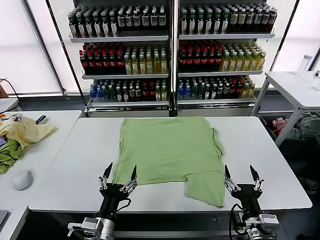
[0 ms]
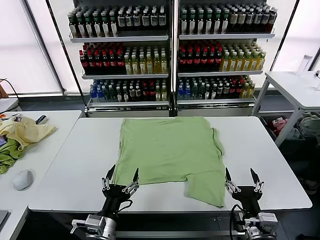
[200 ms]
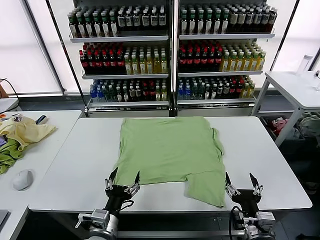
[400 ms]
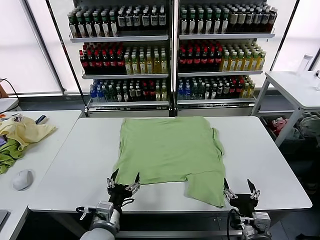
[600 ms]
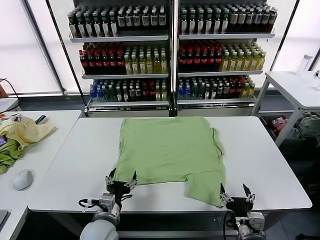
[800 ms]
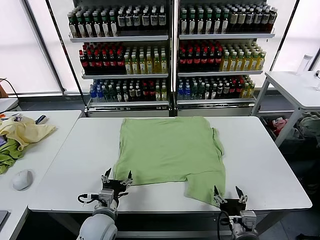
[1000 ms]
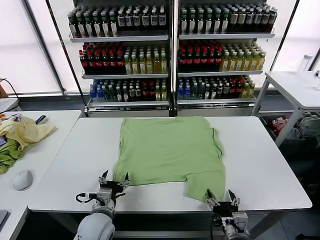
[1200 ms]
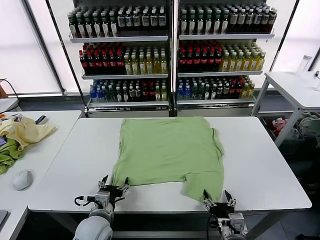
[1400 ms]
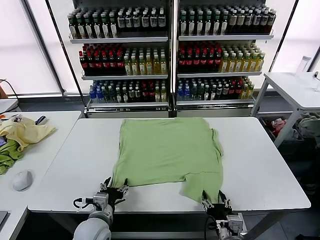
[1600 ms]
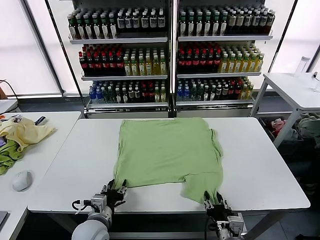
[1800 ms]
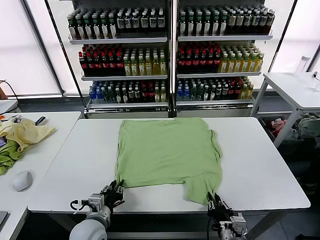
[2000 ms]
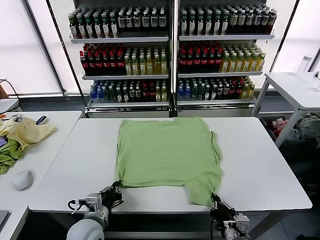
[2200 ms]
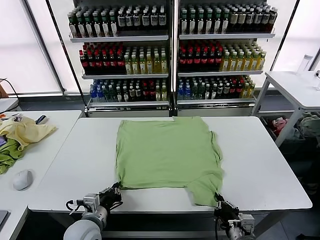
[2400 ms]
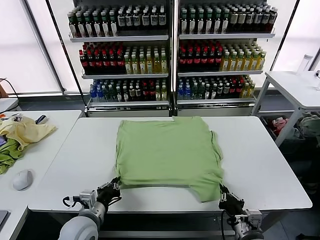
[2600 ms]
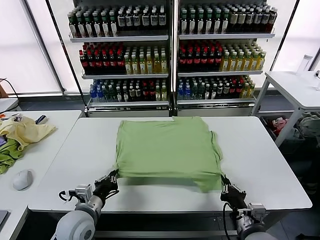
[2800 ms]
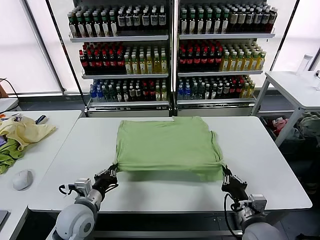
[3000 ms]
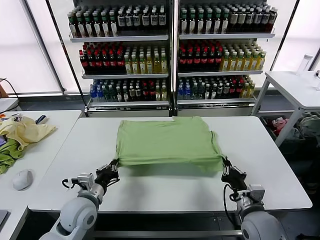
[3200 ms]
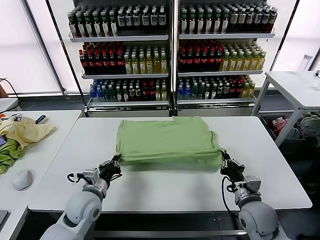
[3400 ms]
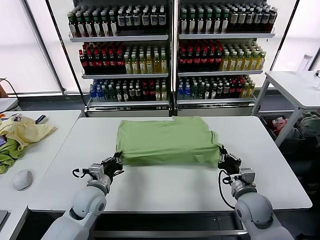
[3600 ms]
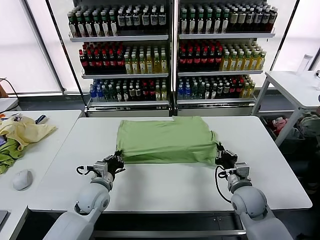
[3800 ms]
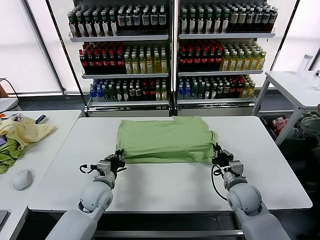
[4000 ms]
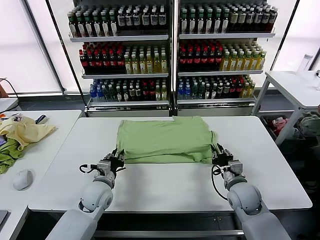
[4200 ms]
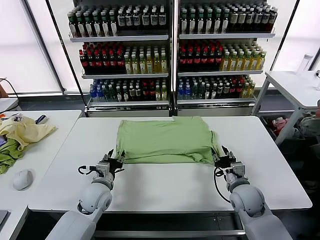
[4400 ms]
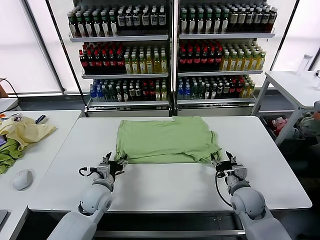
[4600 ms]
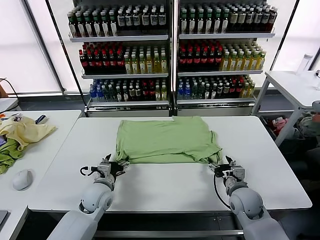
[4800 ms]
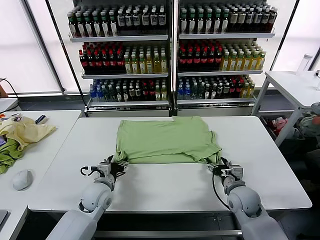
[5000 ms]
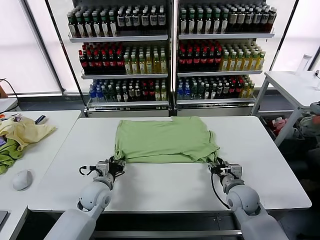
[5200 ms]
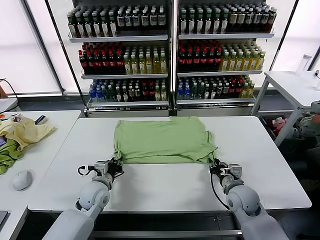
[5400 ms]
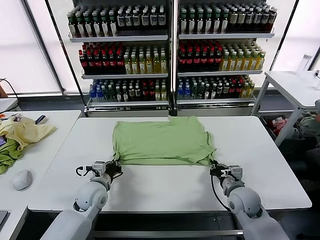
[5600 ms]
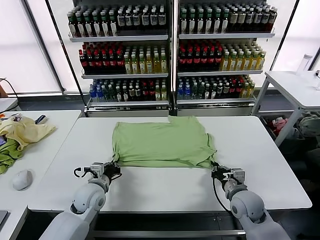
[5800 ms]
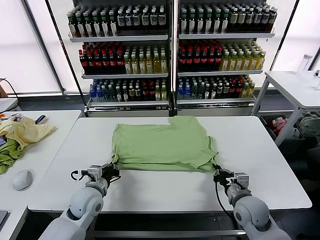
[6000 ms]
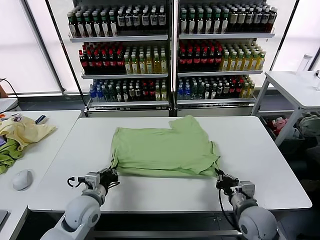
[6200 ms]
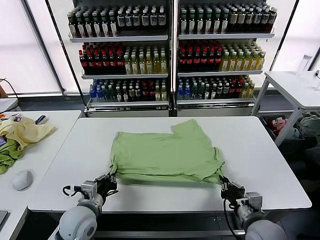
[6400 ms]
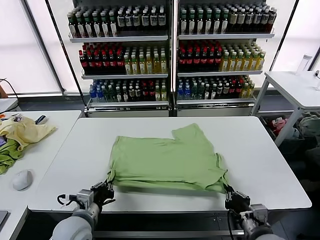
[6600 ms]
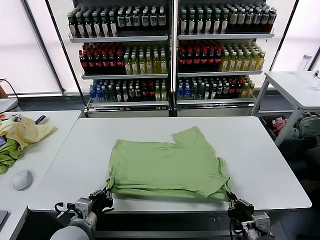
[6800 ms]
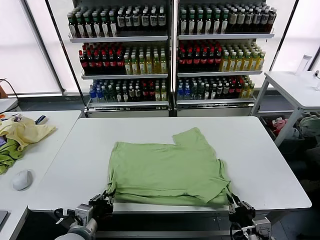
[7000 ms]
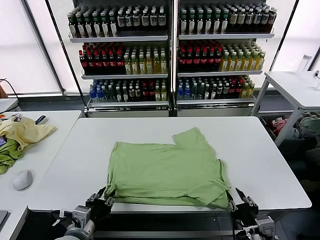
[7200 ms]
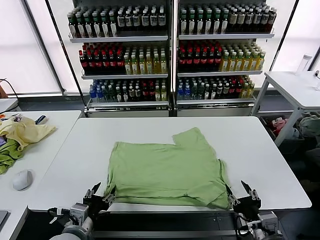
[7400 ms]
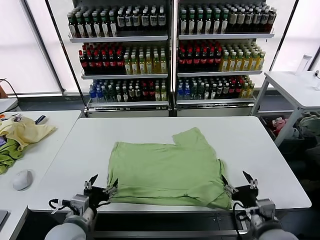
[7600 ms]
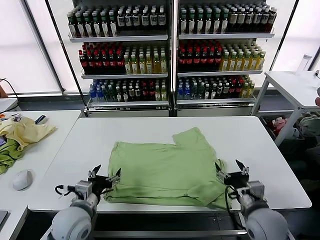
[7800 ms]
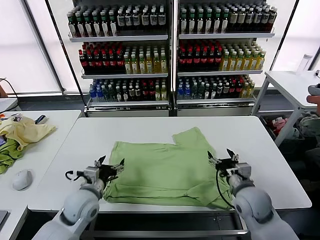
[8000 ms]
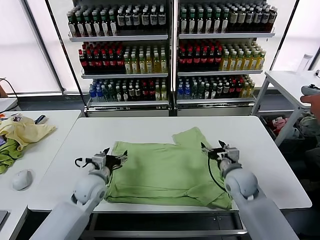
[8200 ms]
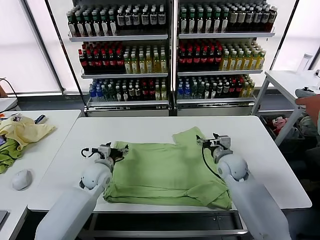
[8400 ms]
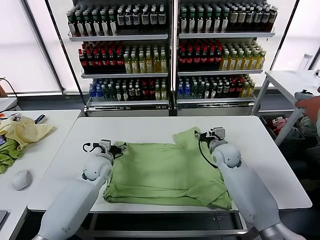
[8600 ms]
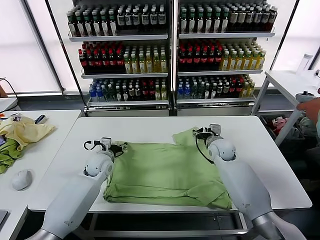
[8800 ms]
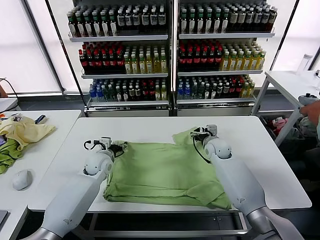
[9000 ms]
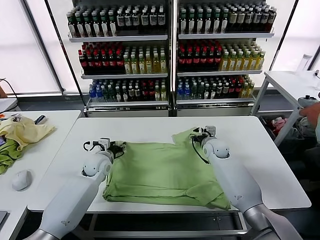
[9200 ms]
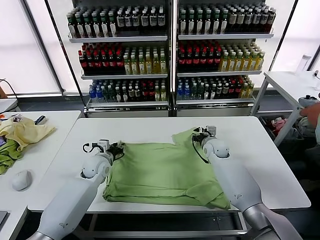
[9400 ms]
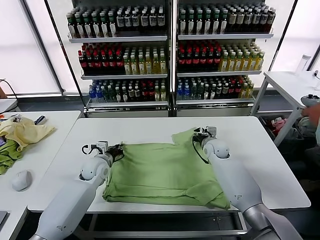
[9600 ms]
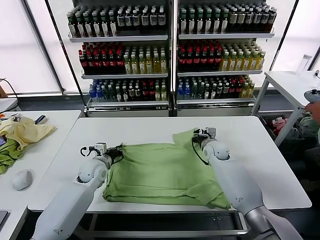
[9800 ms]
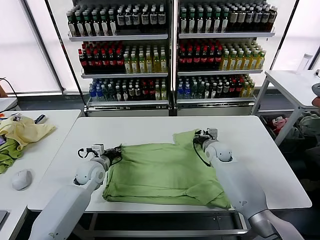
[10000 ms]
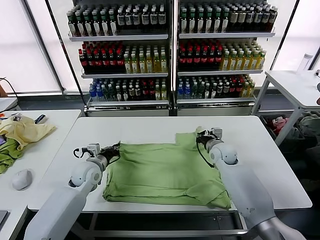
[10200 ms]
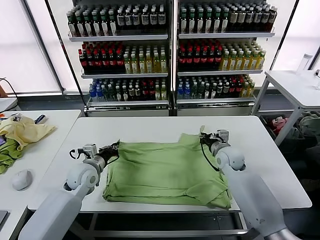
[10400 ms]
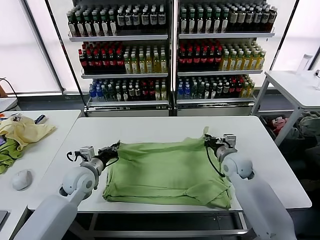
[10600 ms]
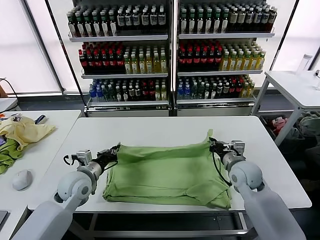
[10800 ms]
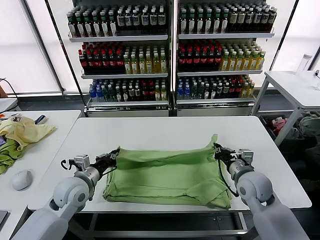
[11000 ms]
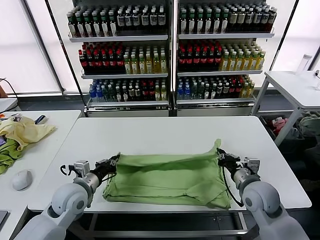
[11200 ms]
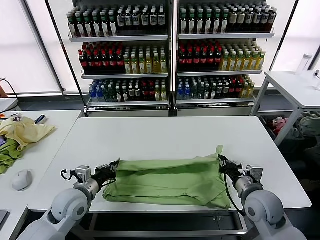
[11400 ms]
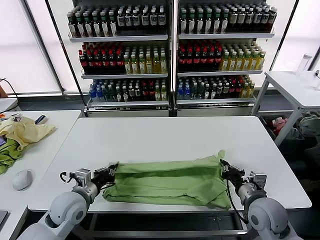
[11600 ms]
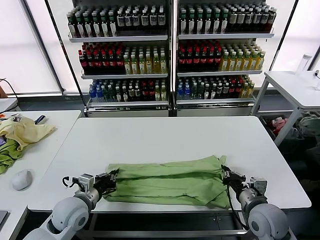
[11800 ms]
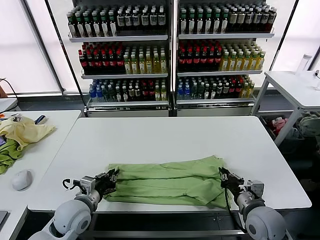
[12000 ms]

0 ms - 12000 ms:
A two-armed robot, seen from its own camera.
Task of the whole recording: fold and organize the clothes.
Step, 0 ms - 2200 ms: use both grippers simultaneously to clamp the lower edge of the clothing fabric.
Step, 2400 ms - 4400 ms: use both grippers to drag the lower edge of the fabric forward and fold it over the upper edge.
Step, 4600 ms - 7200 ms: Drag the clothes downward with both gripper.
Step, 7400 ms - 9600 ms: use both grippers simultaneously to clamp the upper edge of the clothing fabric.
1600 ms - 3000 ms: The right gripper heads forward, to the right and upward, covering roughly 10 cm, and closes its fingers; the left gripper moves roughly 5 cm, and closes its fingers.
3000 ms - 4400 ms: The grippers both shift forward by about 10 cm. The right gripper opens up. Meanwhile the left gripper opens up.
4400 ms - 6000 ms: The left gripper closes its fingers; the right gripper goes some 5 cm backward, and closes up.
6000 ms - 7600 ms: The left gripper goes roughly 10 cm backward, and opens; the right gripper heads backward, covering some 5 cm, and opens its fingers.
7600 ms - 9000 ms: The grippers both shift forward by some 30 cm.
9000 ms - 10400 ms: The two grippers go roughly 5 cm backward. The left gripper closes, while the right gripper closes its fingers.
10400 ms - 12000 ms: The left gripper goes roughly 15 cm backward. The right gripper heads backward, covering about 20 cm.

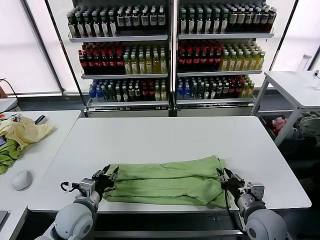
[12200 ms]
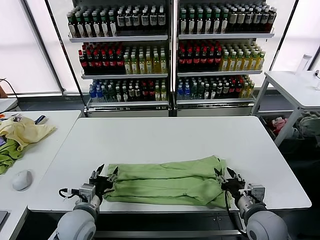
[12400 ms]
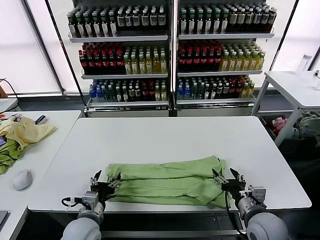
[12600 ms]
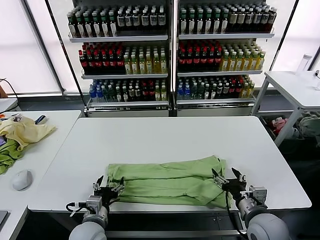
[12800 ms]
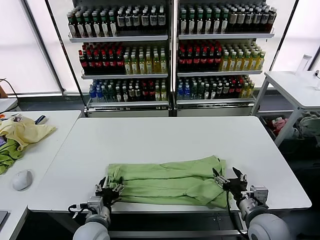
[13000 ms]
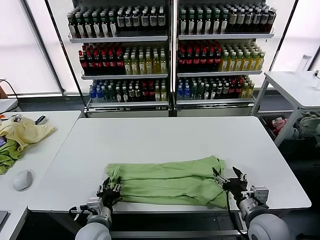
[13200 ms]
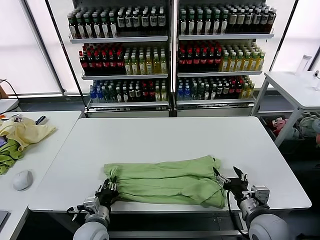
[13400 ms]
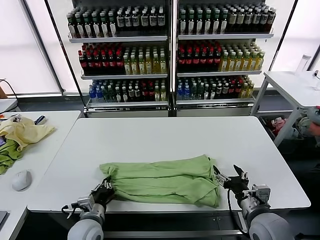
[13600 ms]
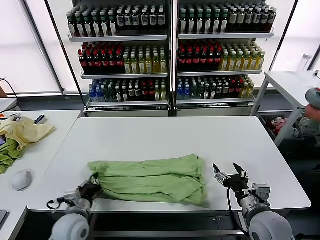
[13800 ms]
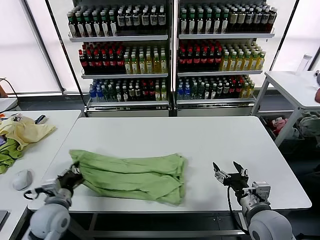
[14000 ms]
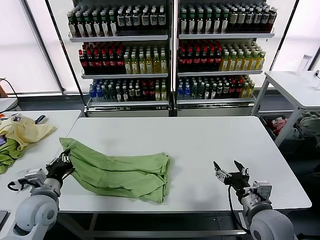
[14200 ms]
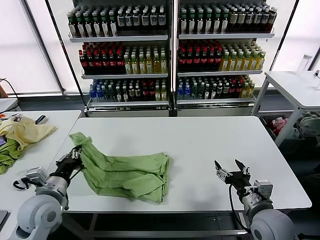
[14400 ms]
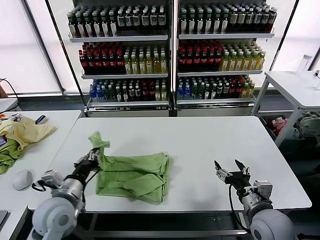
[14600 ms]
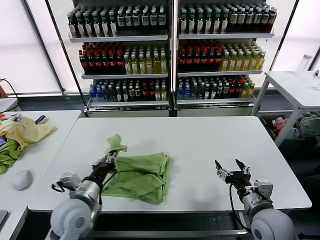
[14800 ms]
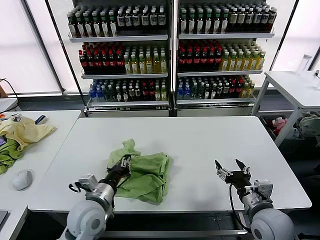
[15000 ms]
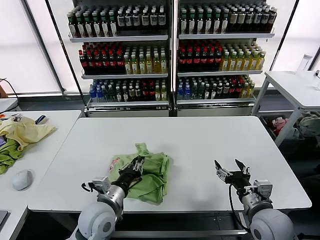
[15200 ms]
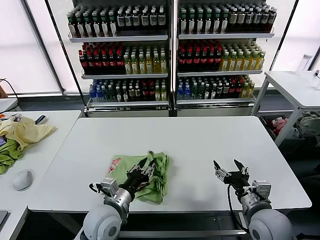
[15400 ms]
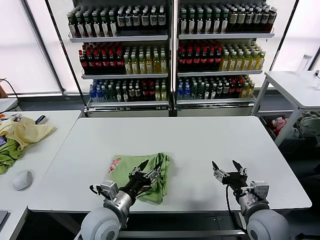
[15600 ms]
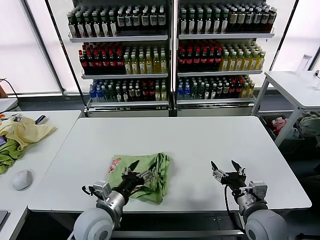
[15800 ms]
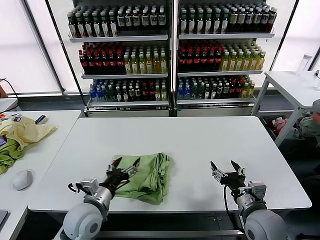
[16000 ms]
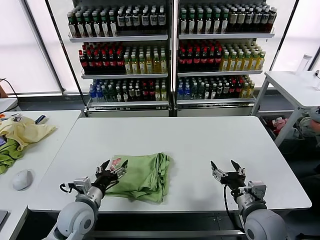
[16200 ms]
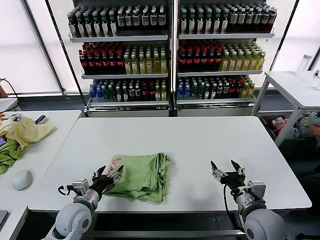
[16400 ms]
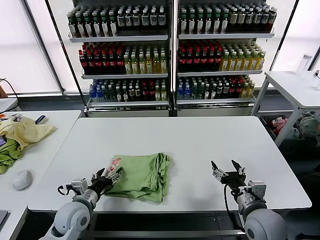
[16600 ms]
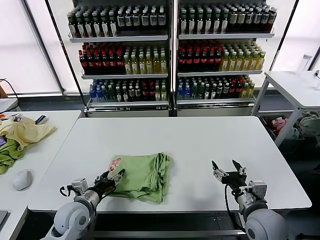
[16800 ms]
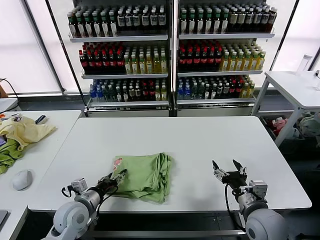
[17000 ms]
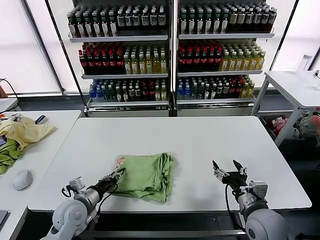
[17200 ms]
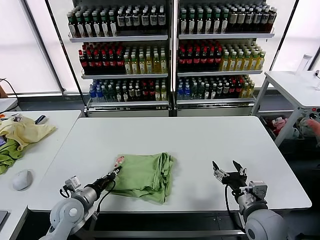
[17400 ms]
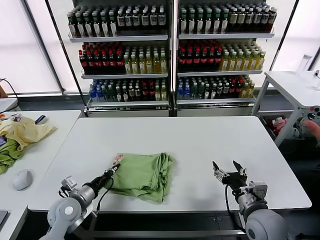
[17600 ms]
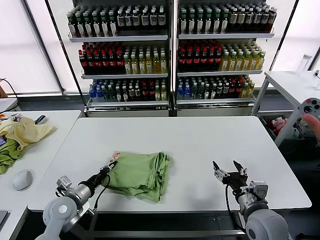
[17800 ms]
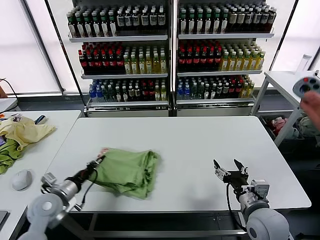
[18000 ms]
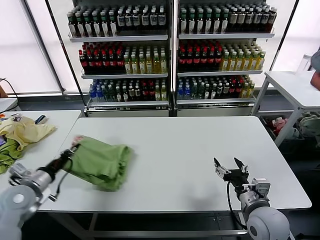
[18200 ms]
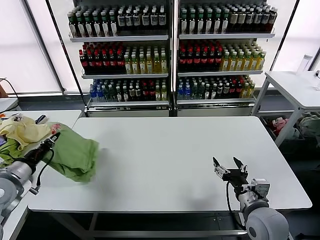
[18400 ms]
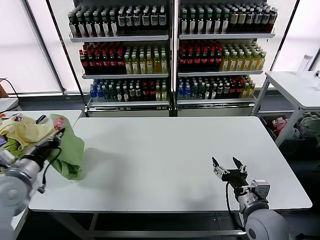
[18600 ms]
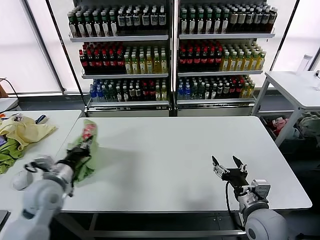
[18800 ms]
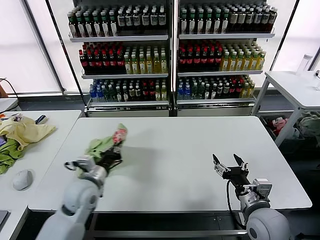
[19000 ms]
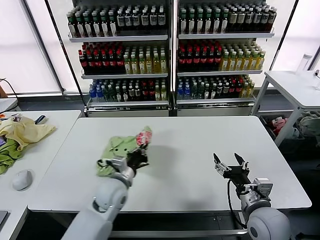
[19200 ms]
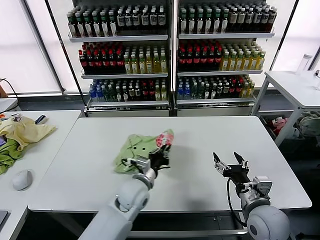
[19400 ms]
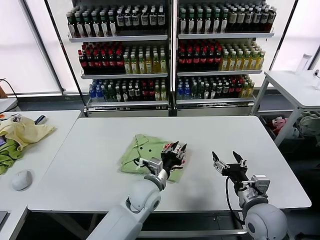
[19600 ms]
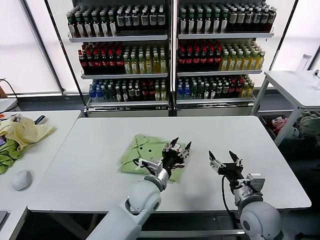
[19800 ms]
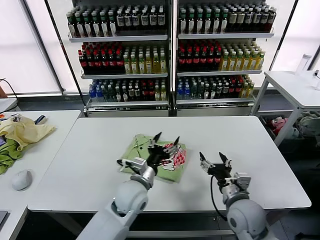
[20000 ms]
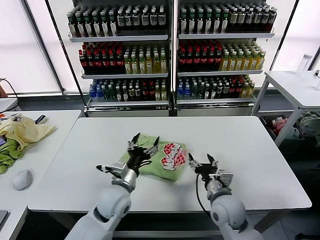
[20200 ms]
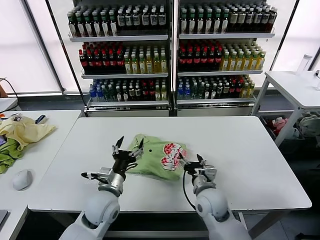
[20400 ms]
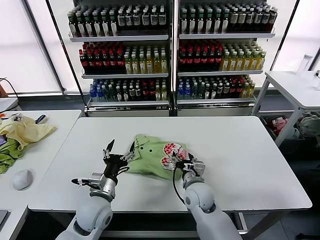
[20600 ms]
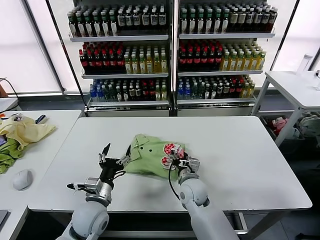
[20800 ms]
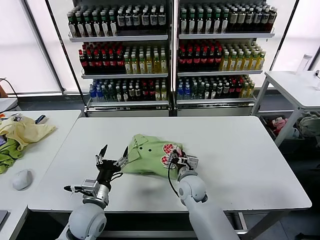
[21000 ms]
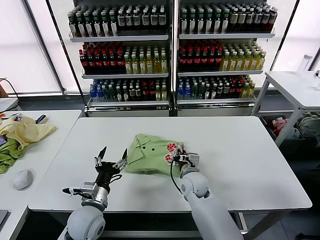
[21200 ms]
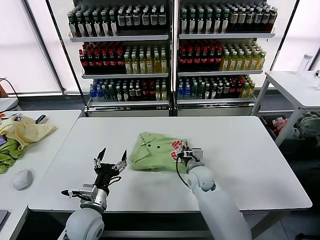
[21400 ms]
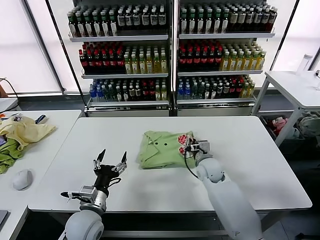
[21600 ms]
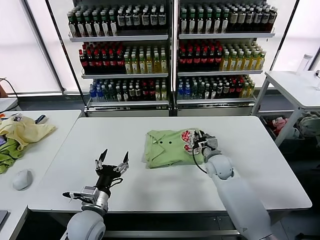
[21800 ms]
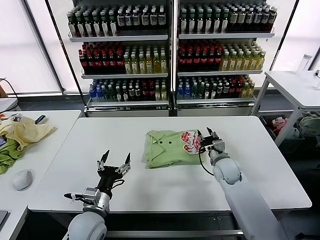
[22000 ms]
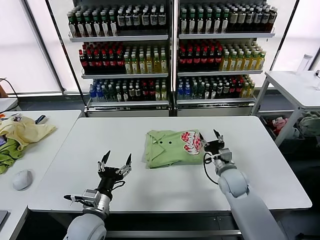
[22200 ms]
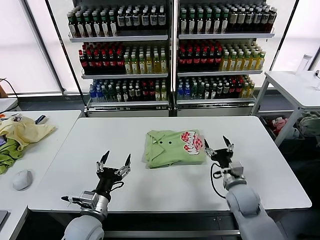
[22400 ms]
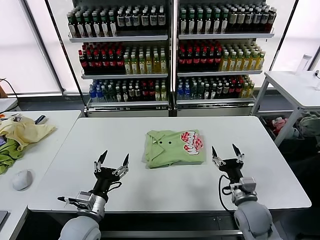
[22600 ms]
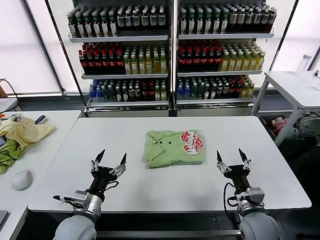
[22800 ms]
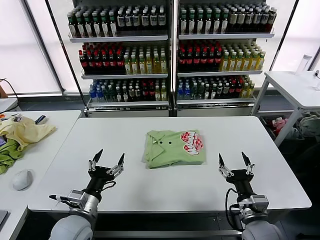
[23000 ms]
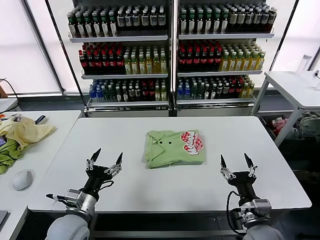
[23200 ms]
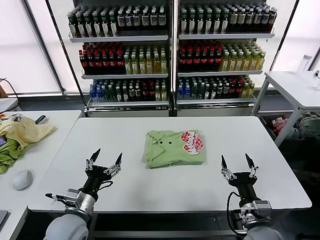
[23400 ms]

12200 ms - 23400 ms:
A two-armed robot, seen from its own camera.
Task of the whole recording: fold and organize the clothes.
Step, 12400 ms - 13400 ms: use the left gripper to clamp the left edge of the fabric.
Step, 13600 ms - 15600 ms: use the left gripper to drag the left edge of the fabric to the left and folds it over the right edge.
Step, 15800 ms - 19400 ms: Flip the folded clothes over with left gripper.
Step, 19800 ms - 21800 ms: Drag the clothes to the center of the table.
12200 ms - 13800 ms: The left gripper closes up. Meanwhile the right gripper opens.
13800 ms - 15400 ms: The left gripper travels to the right and upward by roughly 10 cm, and opens.
15400 ms - 17000 ms: The left gripper travels to the left by approximately 10 cm.
17000 ms - 18600 ms: The left gripper moves upward and to the left, approximately 20 cm, and closes its fingers.
18600 ms - 20200 ms: The left gripper heads to the right, covering approximately 30 cm, and opens, while the right gripper goes some 10 cm to the left and forward.
20200 ms - 21800 ms: The right gripper goes roughly 15 cm forward, and closes up. The left gripper travels to the left and backward by about 10 cm.
21800 ms - 23400 ms: The right gripper is displaced backward by roughly 25 cm, and opens up.
